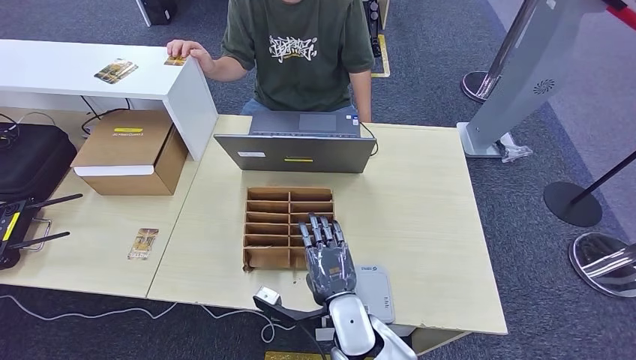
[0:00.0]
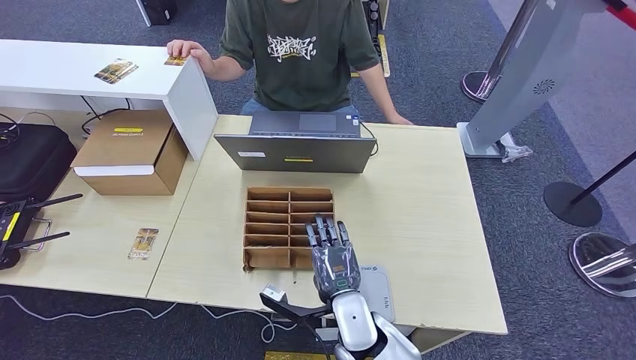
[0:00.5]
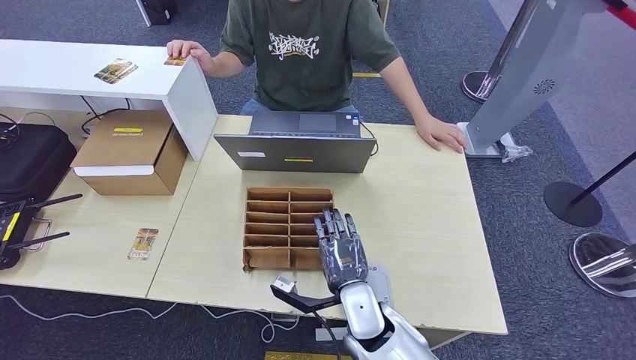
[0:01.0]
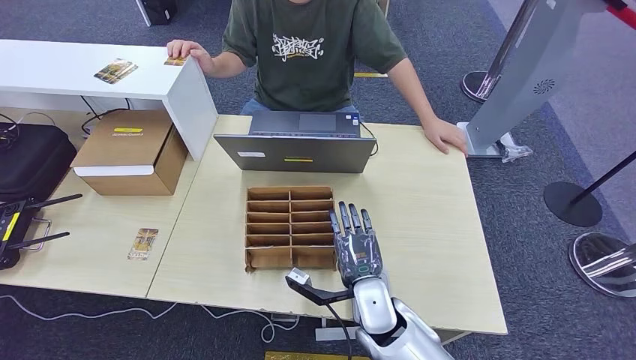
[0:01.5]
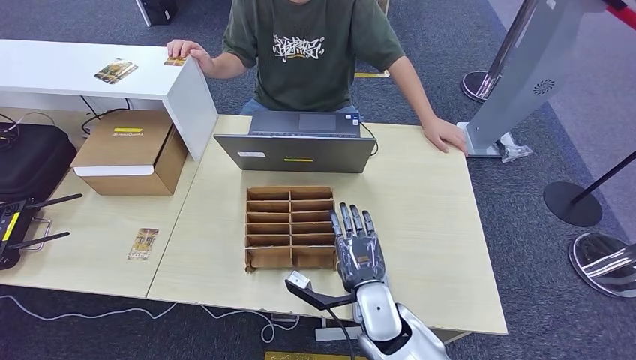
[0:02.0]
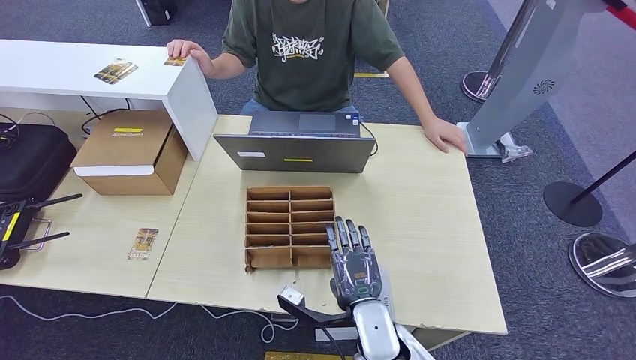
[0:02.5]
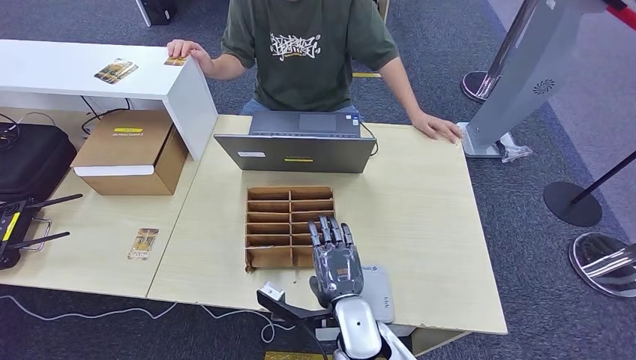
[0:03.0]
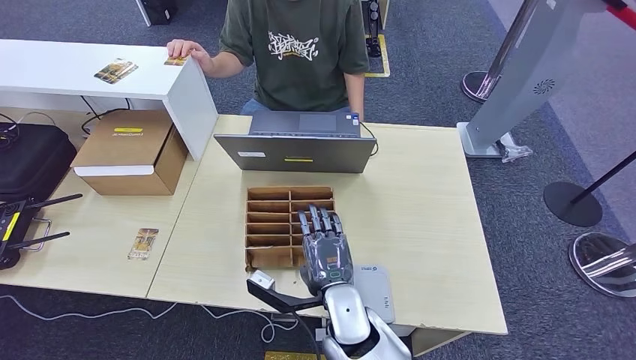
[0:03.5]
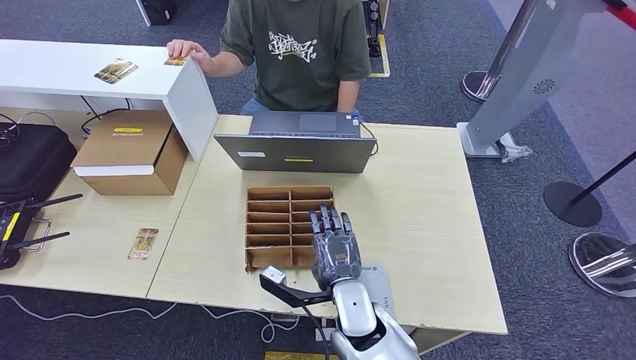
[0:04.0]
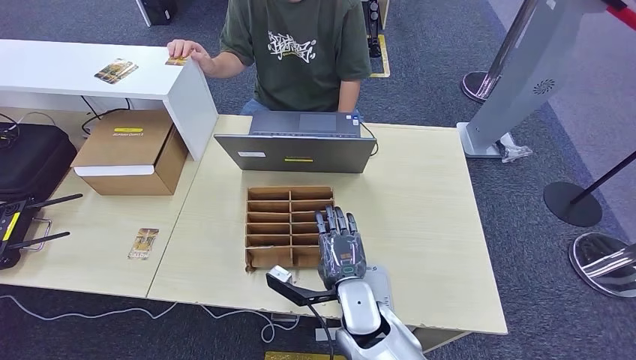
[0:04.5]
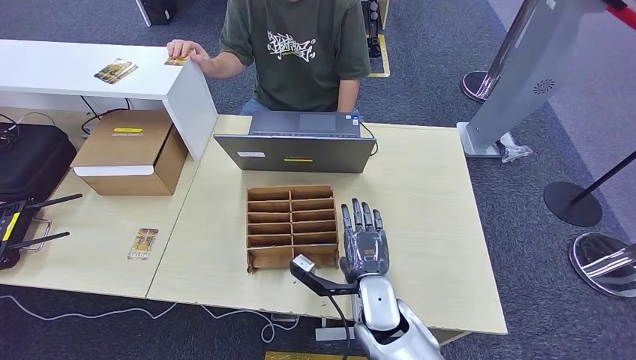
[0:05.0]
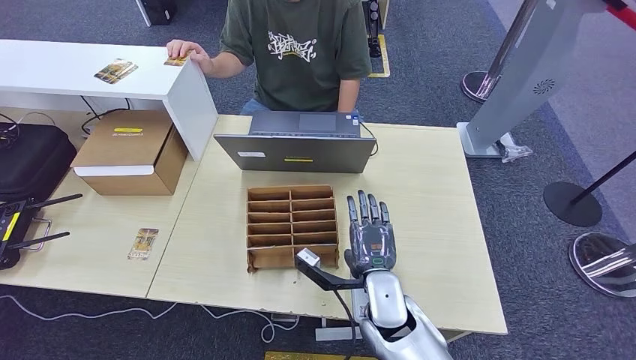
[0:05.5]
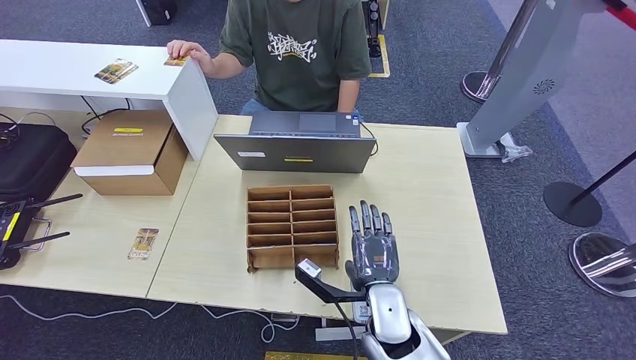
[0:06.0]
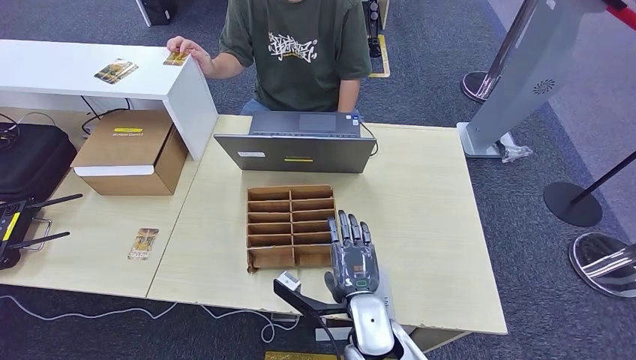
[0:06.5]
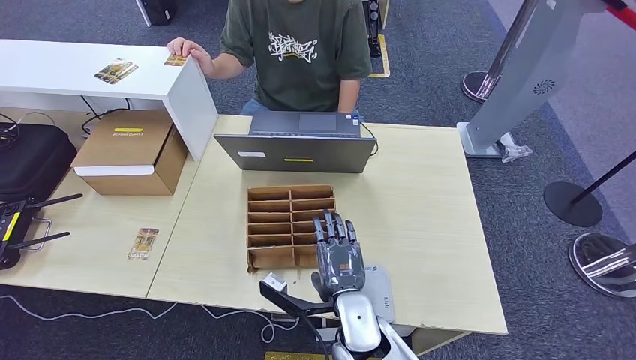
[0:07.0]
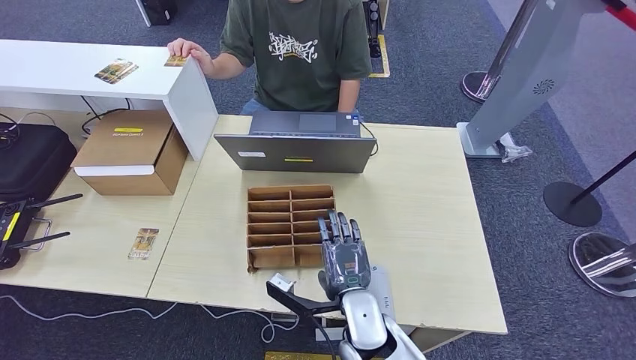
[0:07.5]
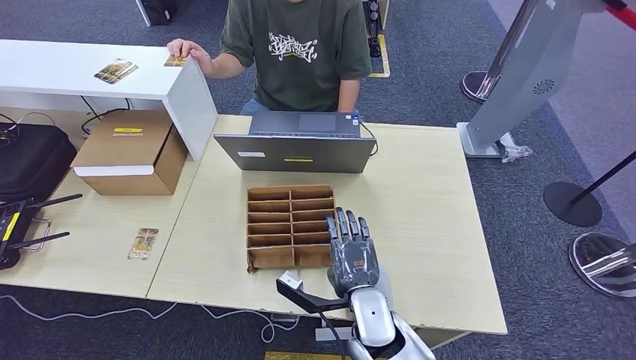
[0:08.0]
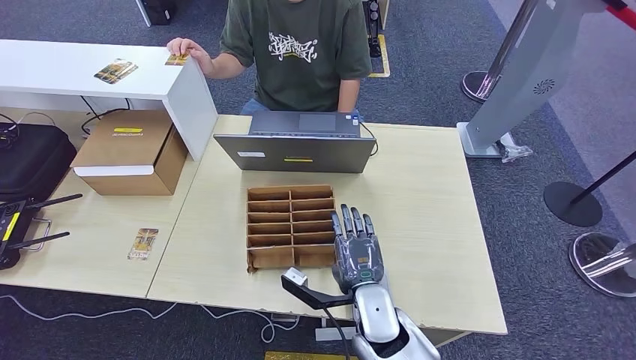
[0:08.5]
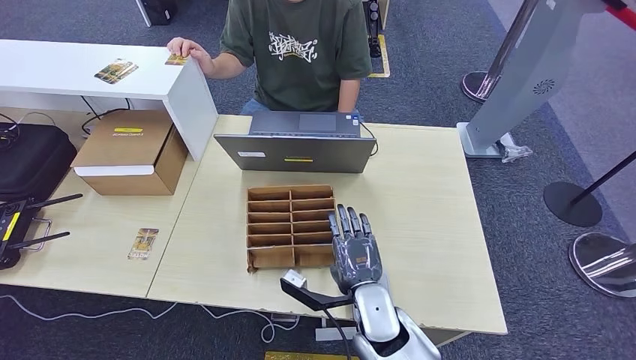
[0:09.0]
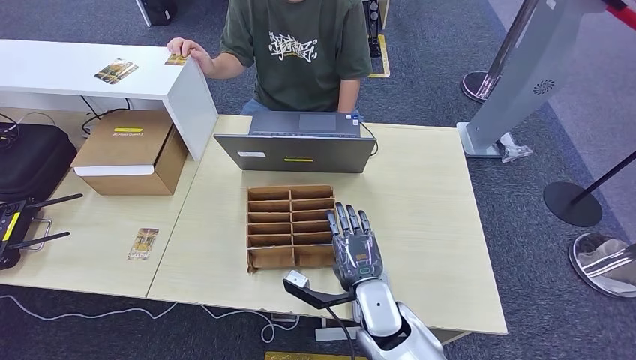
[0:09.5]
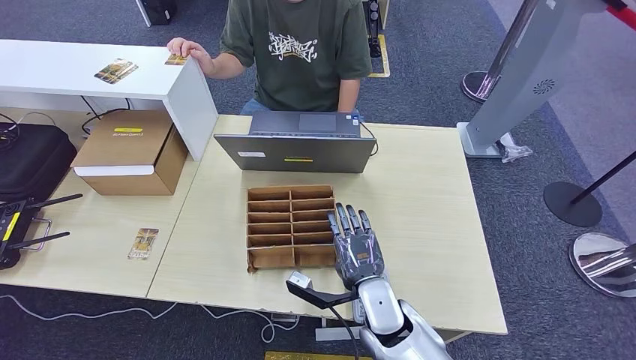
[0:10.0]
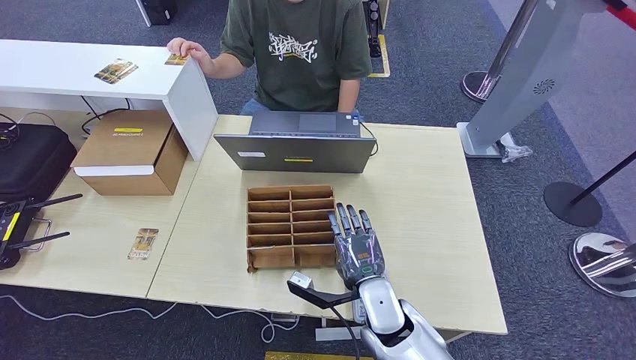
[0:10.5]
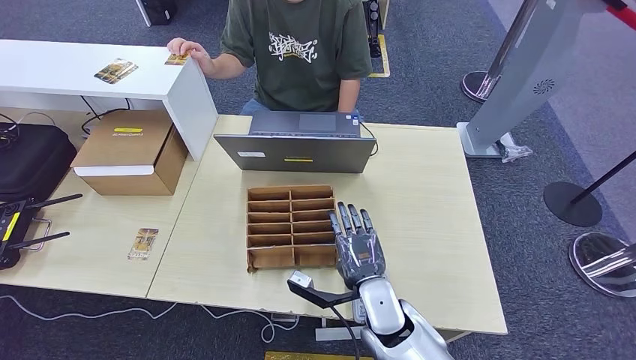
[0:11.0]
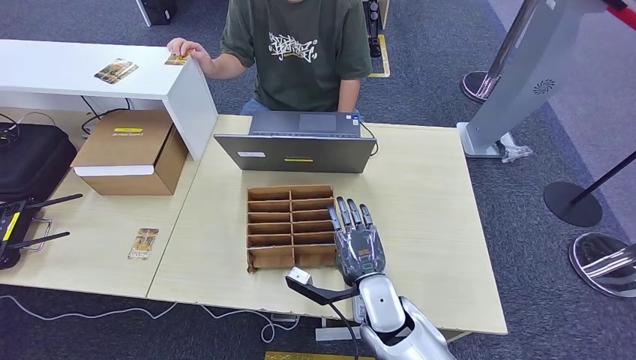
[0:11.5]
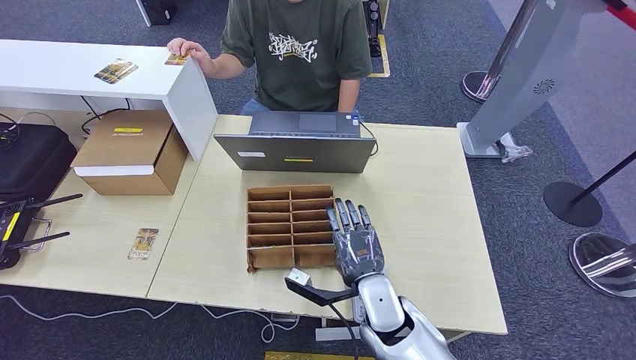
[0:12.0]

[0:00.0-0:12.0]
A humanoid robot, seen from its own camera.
0:00.0 to 0:02.0: The right hand travels to the right by roughly 5 cm.
0:04.0 to 0:06.0: The right hand goes some 5 cm to the right.
0:06.0 to 0:10.0: There are only small adjustments of the hands.
0:10.0 to 0:12.0: Both hands stay about where they are.

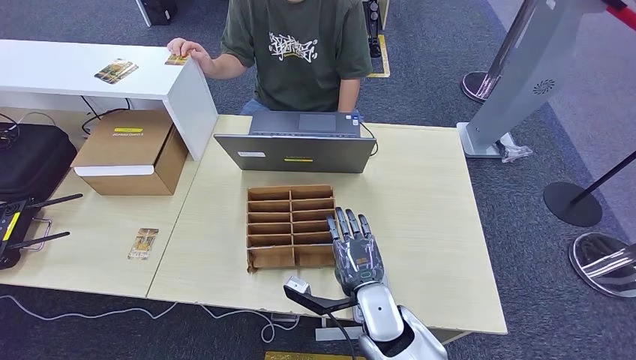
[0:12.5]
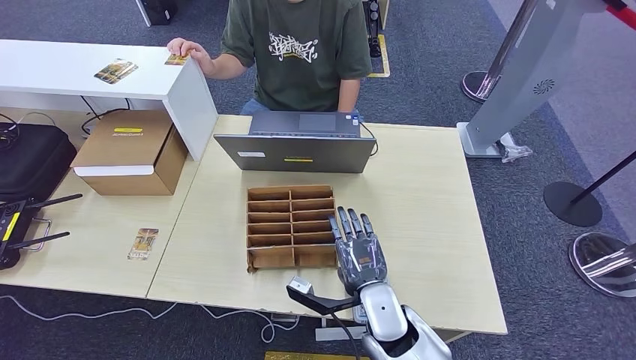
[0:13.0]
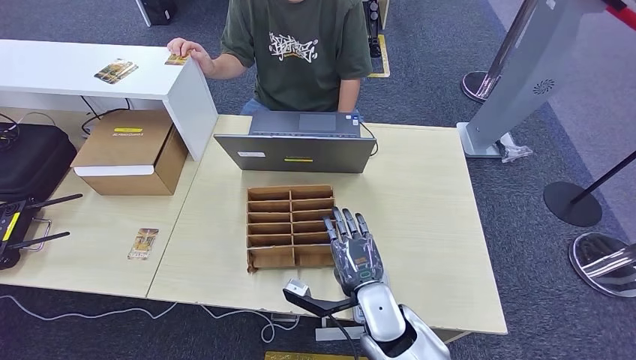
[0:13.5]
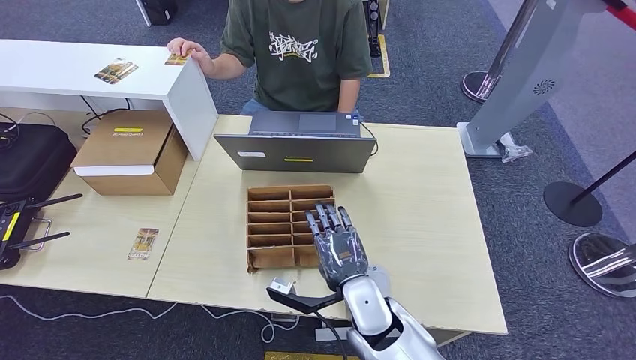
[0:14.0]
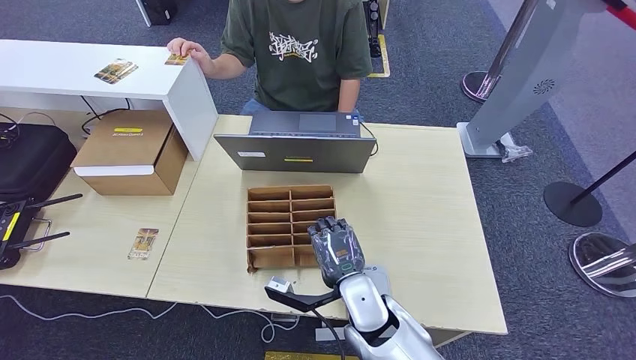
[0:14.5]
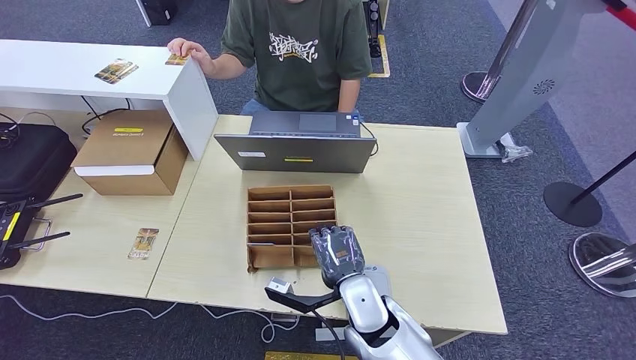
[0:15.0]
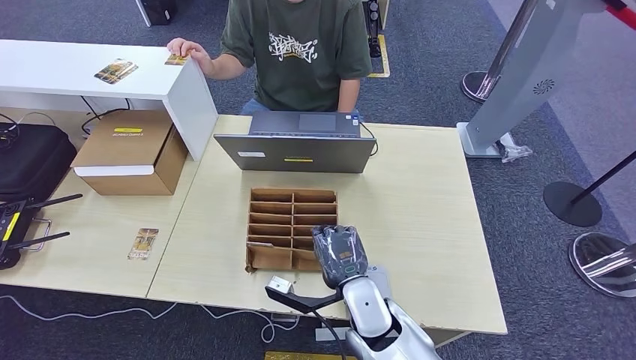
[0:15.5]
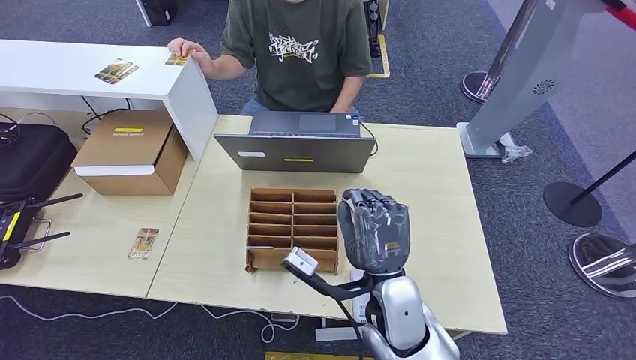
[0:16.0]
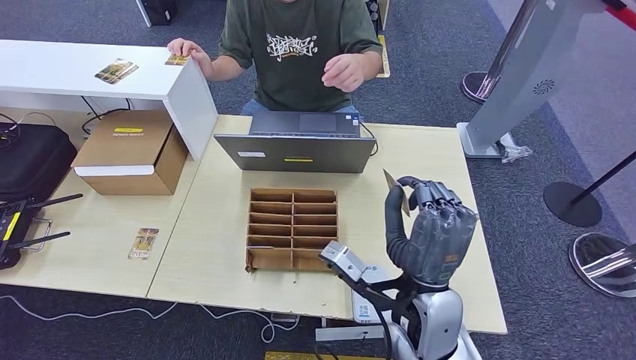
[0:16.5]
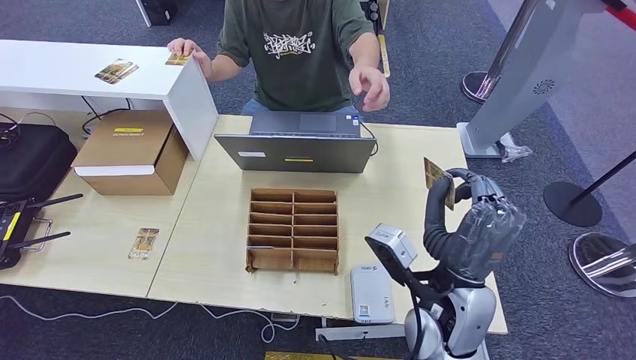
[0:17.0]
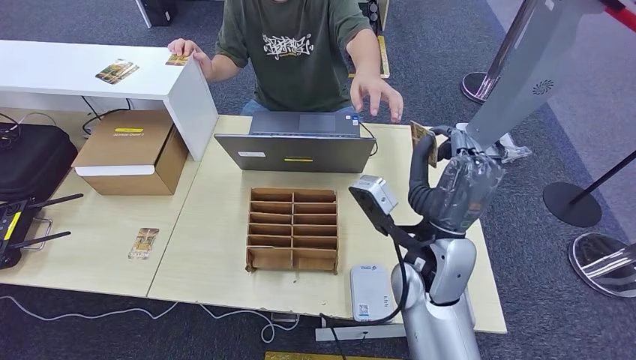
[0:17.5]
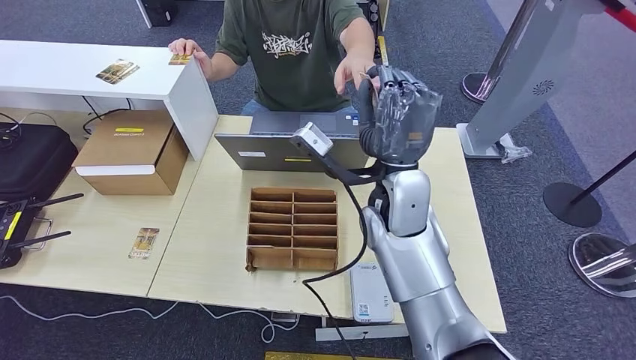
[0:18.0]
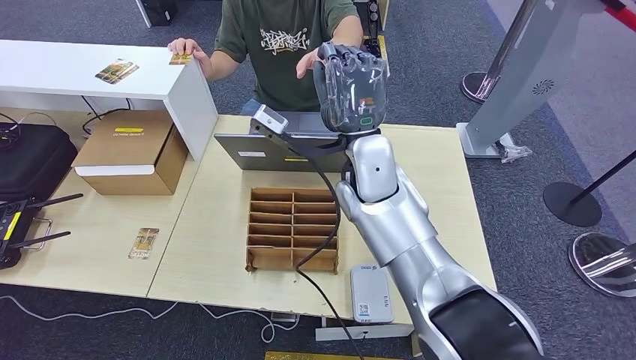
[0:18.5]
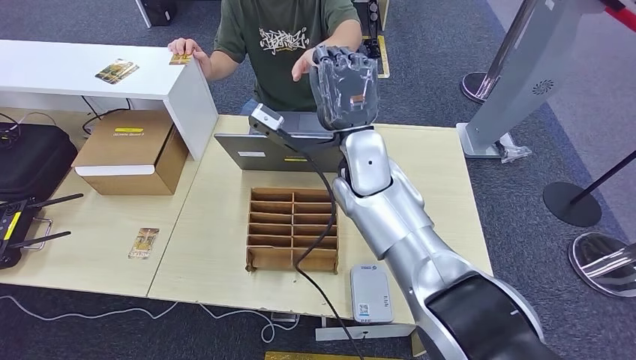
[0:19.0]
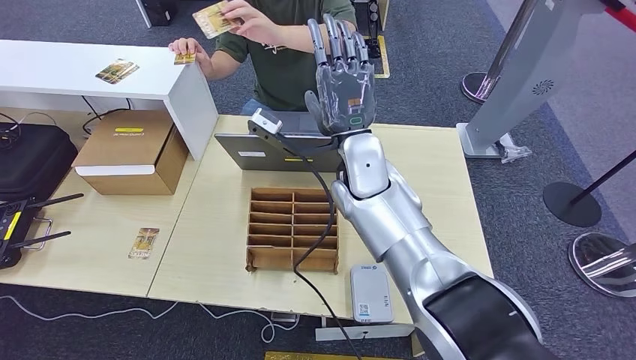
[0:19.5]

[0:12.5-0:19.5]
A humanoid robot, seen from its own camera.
Step, 0:12.5 to 0:16.0: Pick up the room key from the key card box.
Step, 0:16.5 to 0:19.5: Hand the room key to the person.
0:12.5 to 0:14.5: The hands move only a little.
0:14.5 to 0:16.0: The right hand heads upward, covering approximately 5 cm.
0:16.0 to 0:17.5: The right hand goes approximately 10 cm upward and to the right.
0:17.5 to 0:19.5: The right hand goes about 15 cm forward, to the left and upward.
